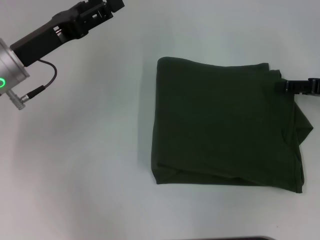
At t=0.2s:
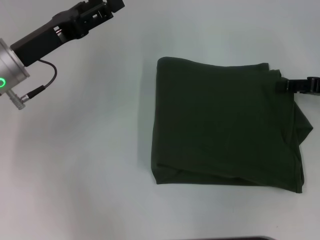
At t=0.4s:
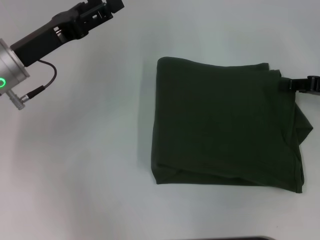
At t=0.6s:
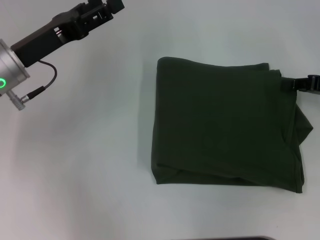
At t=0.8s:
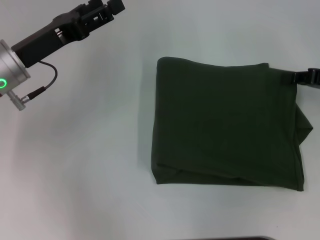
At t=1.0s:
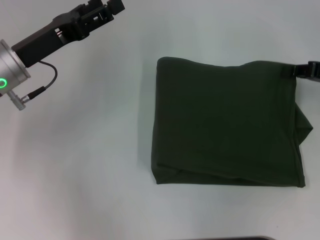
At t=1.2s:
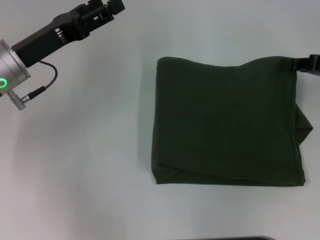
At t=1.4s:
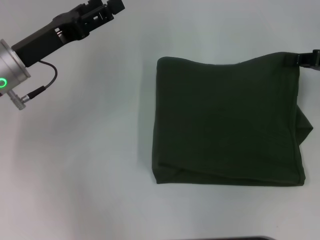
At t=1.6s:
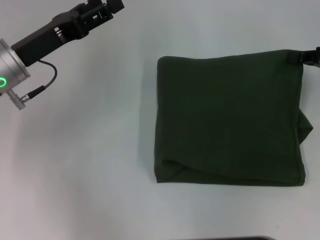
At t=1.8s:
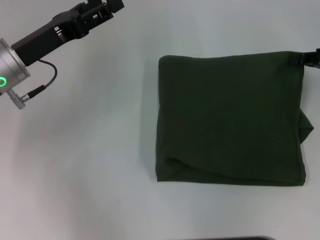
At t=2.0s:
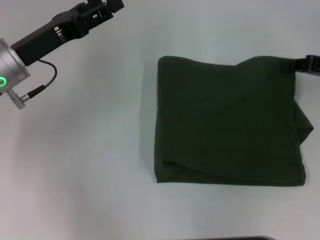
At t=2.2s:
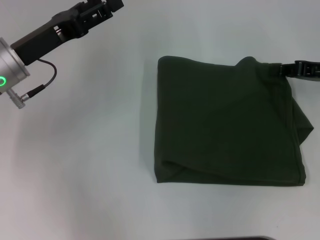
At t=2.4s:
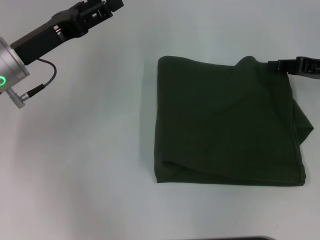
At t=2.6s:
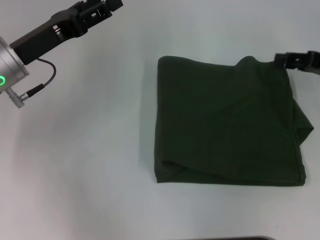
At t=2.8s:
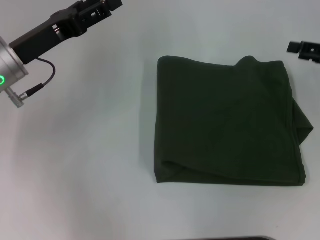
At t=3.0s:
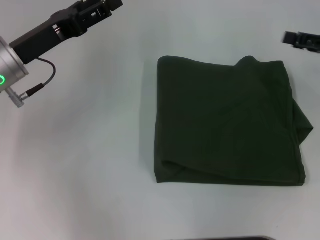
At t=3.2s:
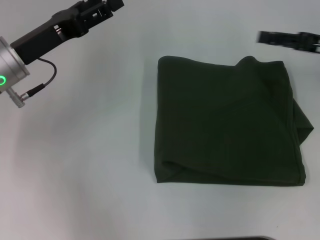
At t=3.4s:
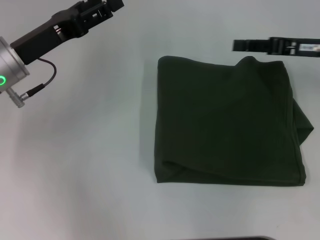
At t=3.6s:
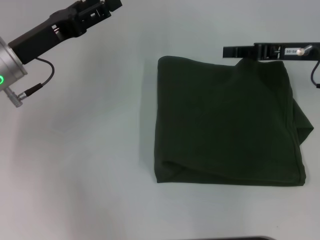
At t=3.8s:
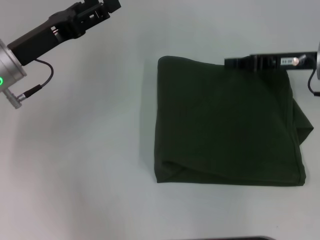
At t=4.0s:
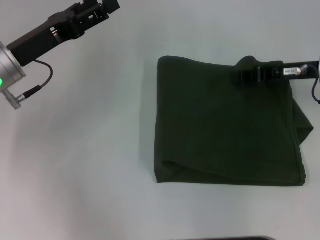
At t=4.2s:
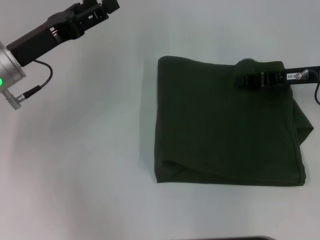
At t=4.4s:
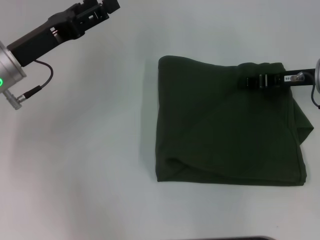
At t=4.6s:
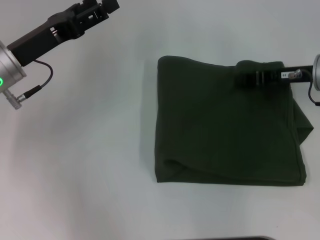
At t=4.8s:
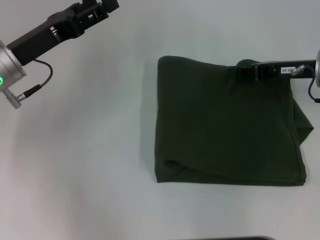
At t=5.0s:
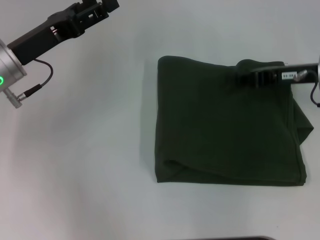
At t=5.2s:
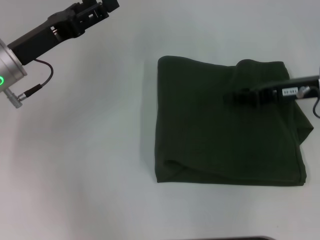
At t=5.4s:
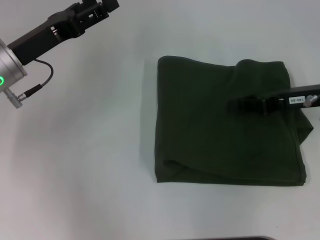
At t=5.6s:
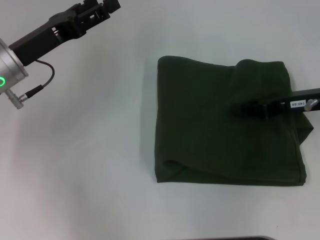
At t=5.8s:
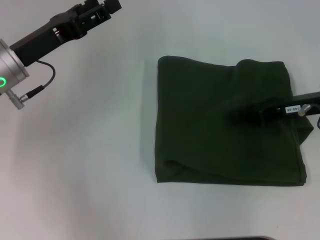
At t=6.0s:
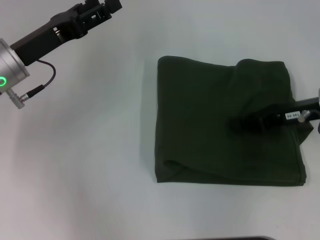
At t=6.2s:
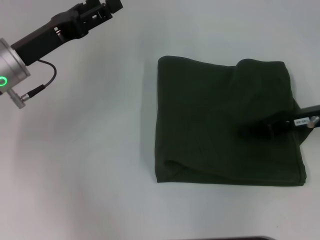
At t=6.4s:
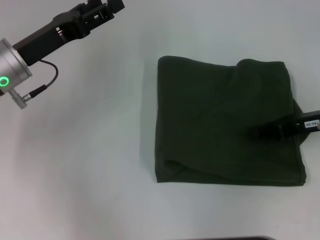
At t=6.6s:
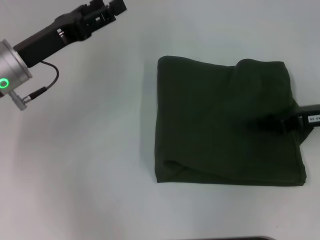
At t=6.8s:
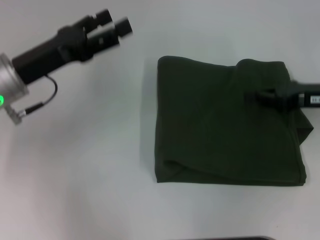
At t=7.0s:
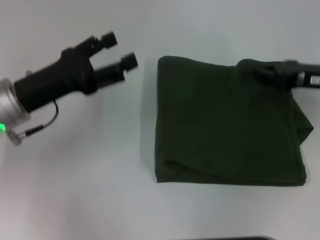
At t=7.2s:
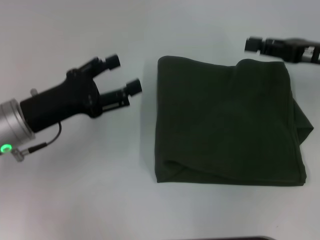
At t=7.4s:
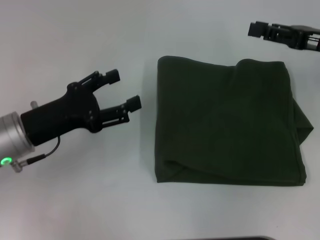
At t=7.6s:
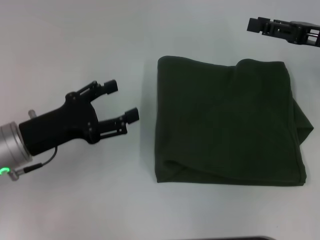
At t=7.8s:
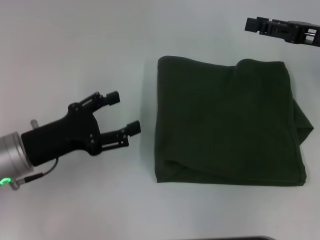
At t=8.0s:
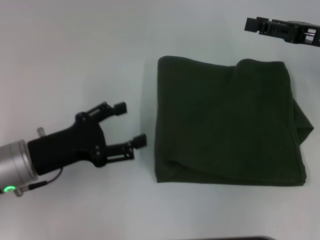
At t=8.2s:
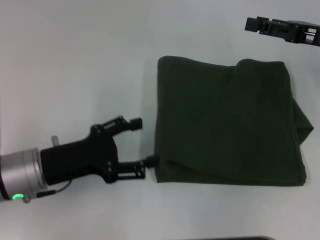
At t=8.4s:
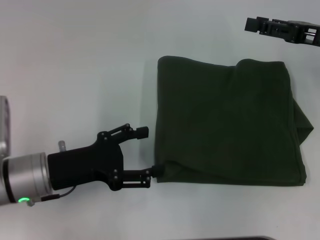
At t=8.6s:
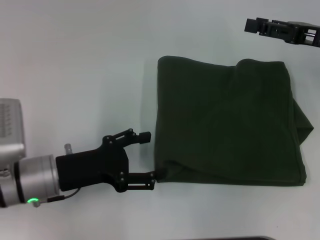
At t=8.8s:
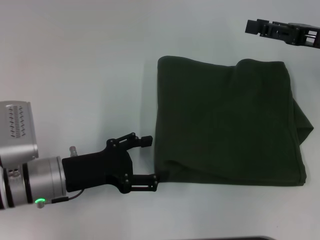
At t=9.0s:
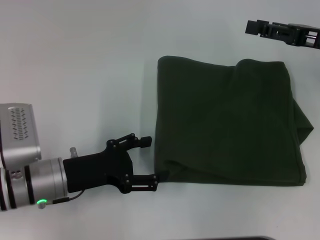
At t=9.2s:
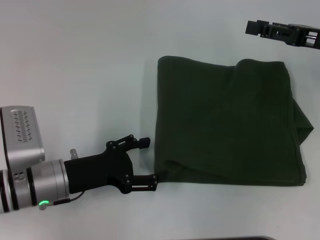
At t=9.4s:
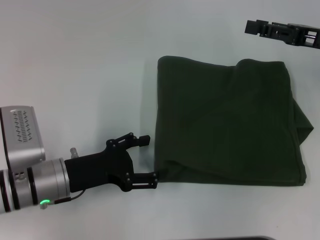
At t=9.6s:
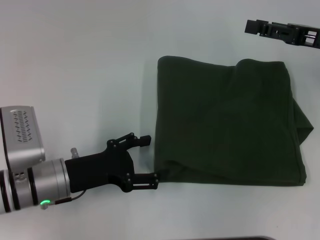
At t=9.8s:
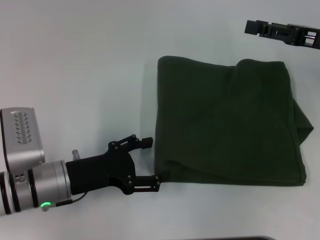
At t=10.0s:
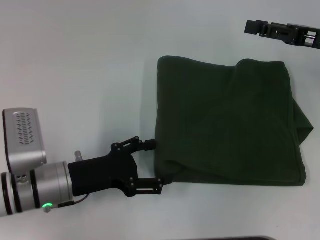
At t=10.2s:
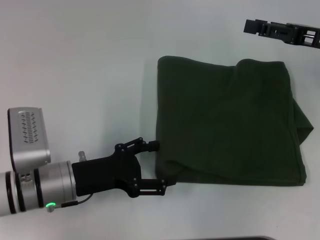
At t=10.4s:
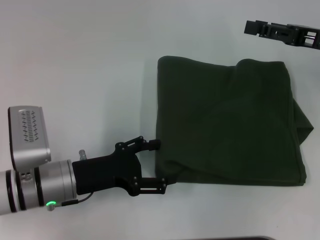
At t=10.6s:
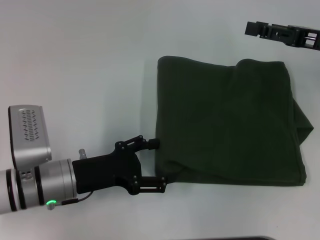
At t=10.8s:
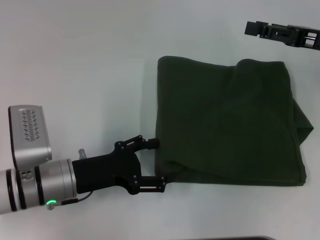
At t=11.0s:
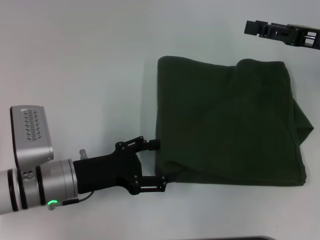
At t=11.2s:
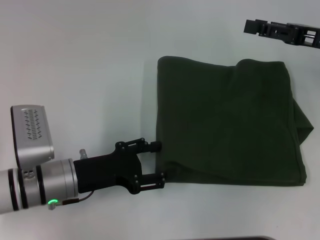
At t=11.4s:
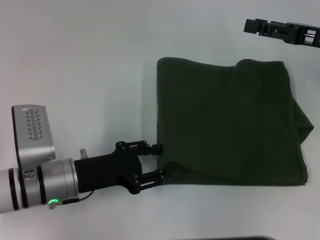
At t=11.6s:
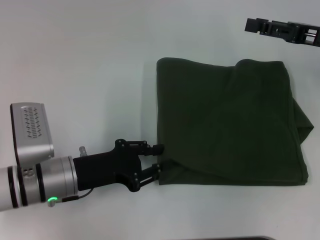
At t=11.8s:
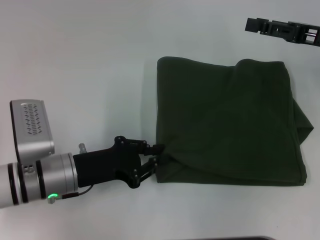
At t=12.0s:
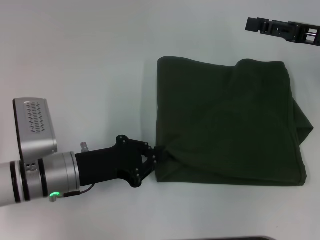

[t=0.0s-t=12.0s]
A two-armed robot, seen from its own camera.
t=0.0s to t=1.6s: The right gripper closes its fingers.
t=1.6s to t=3.0s: The right gripper opens its fingers.
t=3.0s to t=4.4s: The right gripper travels to the left by some 5 cm, and closes up.
t=4.4s to t=6.0s: The grippers stay close to where they were, moving slightly.
t=6.0s to t=7.6s: The left gripper goes about 10 cm backward; the right gripper moves upward, roughly 5 cm, and opens.
t=7.6s to t=9.0s: The left gripper changes place by approximately 5 cm.
t=9.0s to t=10.4s: Neither gripper changes place.
t=10.4s to t=12.0s: The left gripper closes.

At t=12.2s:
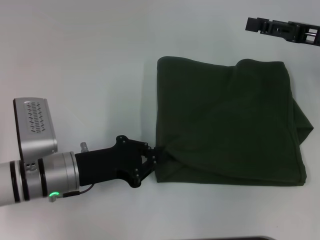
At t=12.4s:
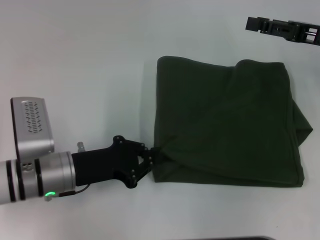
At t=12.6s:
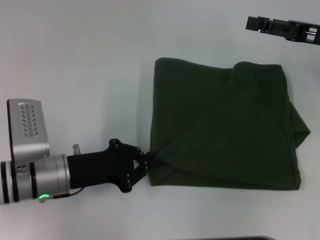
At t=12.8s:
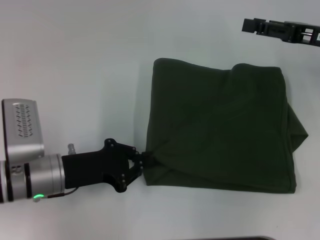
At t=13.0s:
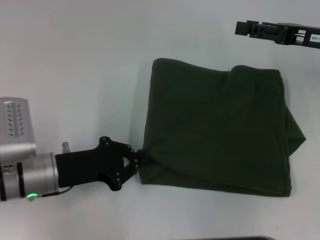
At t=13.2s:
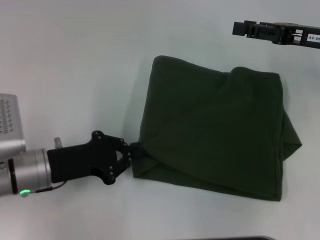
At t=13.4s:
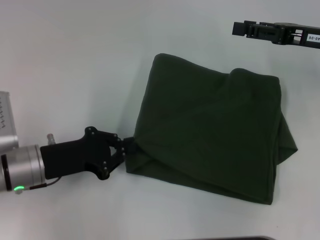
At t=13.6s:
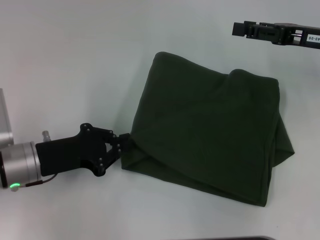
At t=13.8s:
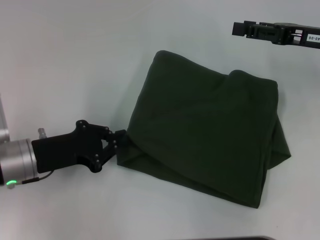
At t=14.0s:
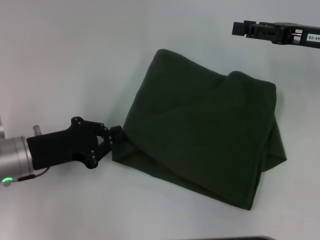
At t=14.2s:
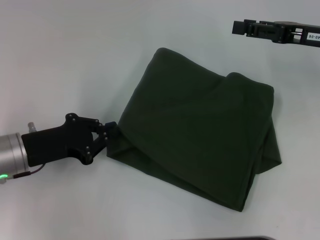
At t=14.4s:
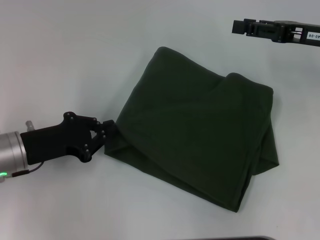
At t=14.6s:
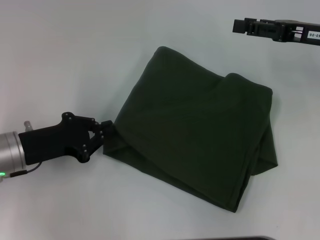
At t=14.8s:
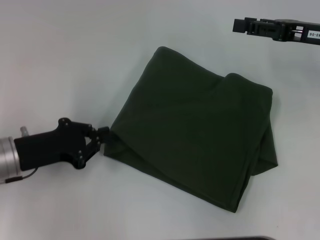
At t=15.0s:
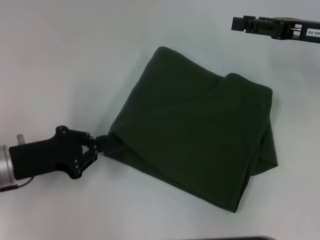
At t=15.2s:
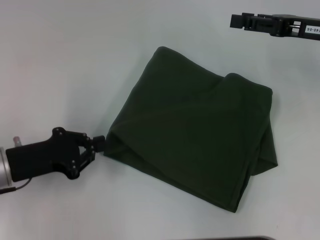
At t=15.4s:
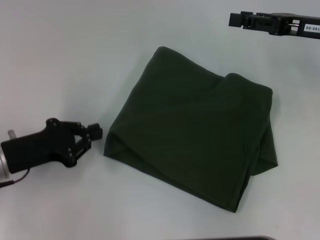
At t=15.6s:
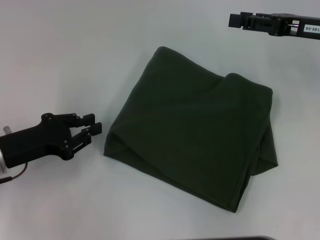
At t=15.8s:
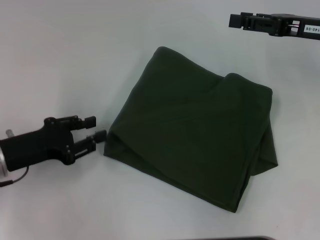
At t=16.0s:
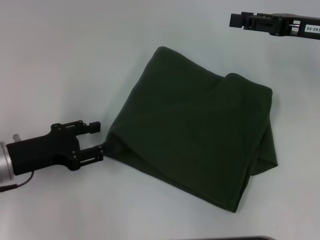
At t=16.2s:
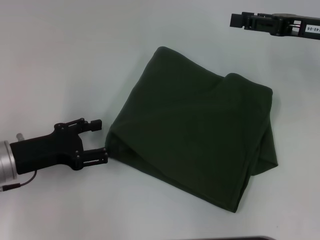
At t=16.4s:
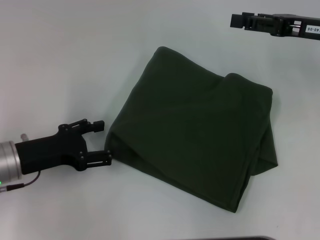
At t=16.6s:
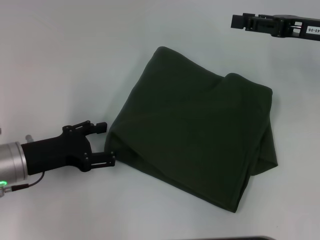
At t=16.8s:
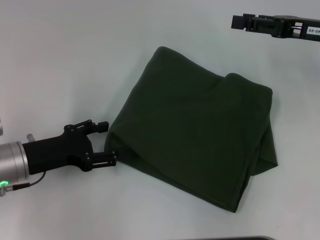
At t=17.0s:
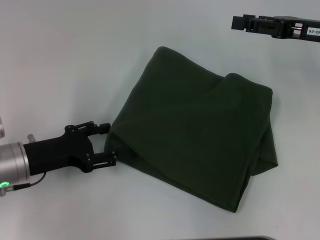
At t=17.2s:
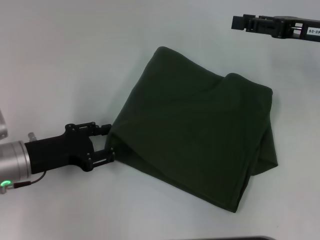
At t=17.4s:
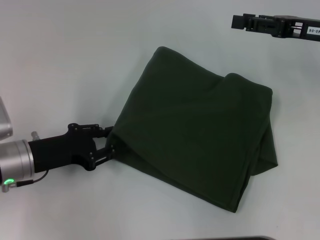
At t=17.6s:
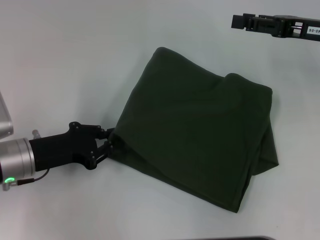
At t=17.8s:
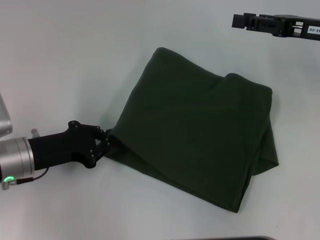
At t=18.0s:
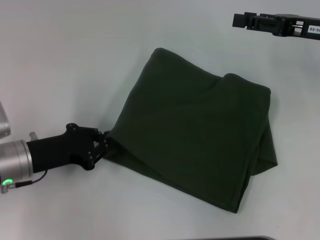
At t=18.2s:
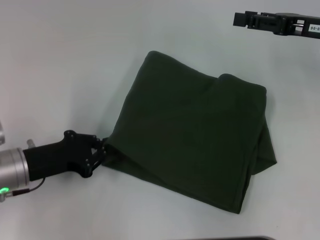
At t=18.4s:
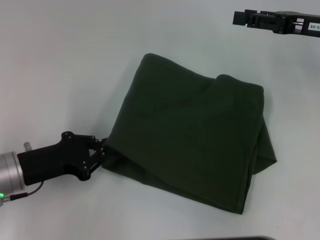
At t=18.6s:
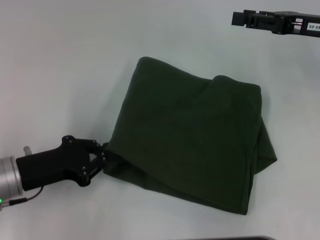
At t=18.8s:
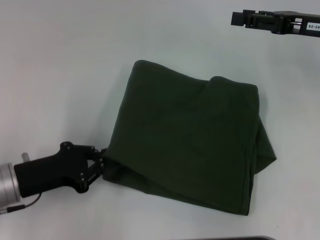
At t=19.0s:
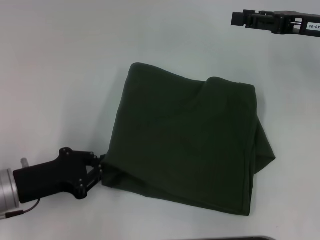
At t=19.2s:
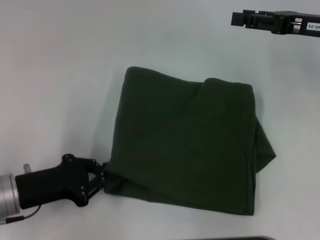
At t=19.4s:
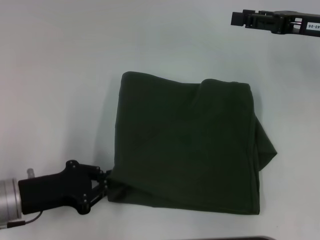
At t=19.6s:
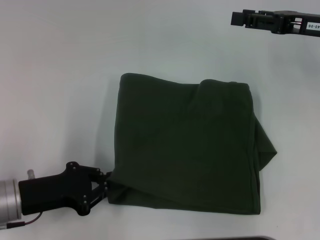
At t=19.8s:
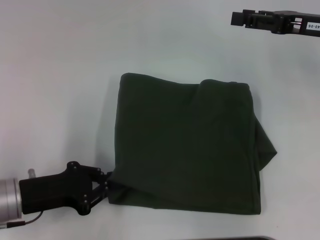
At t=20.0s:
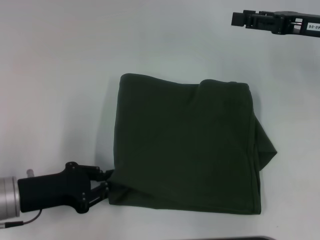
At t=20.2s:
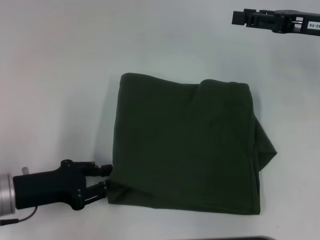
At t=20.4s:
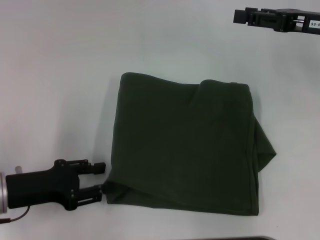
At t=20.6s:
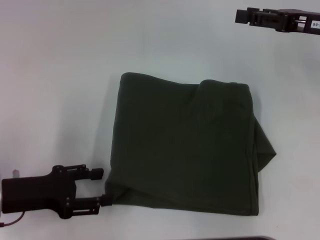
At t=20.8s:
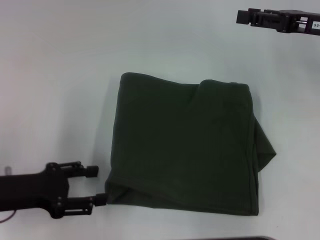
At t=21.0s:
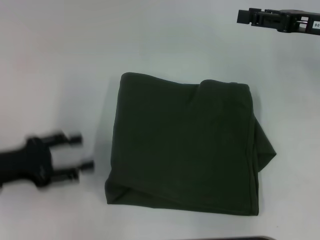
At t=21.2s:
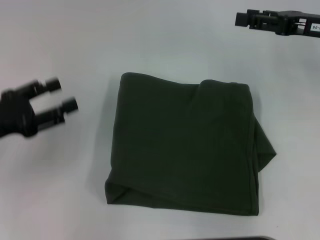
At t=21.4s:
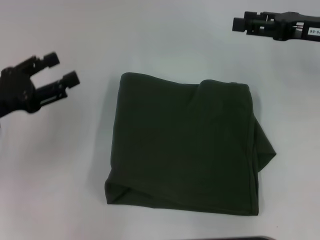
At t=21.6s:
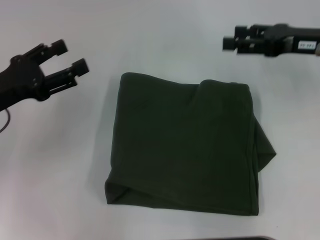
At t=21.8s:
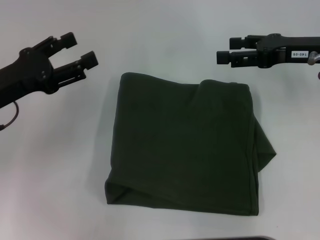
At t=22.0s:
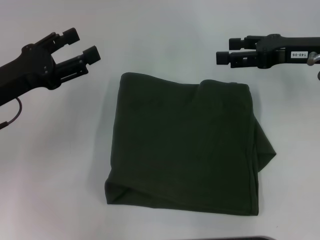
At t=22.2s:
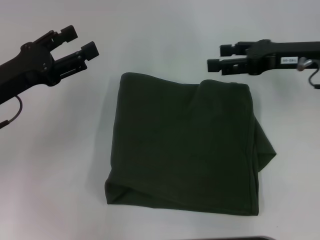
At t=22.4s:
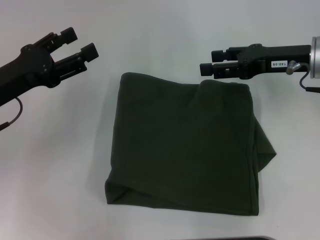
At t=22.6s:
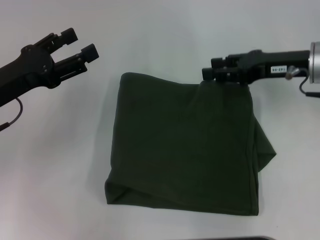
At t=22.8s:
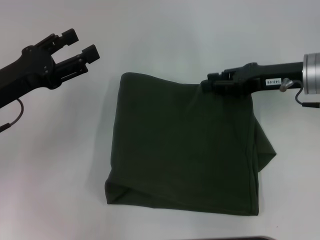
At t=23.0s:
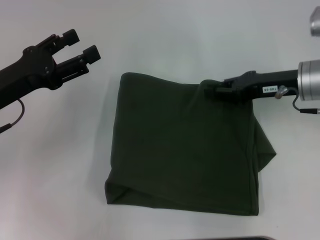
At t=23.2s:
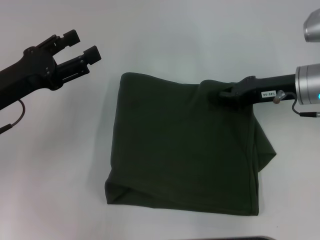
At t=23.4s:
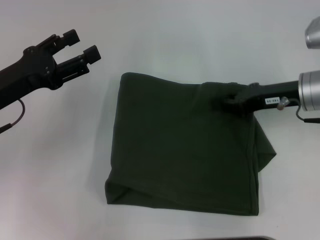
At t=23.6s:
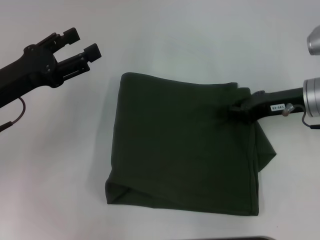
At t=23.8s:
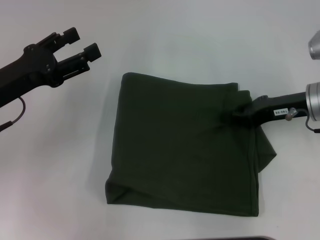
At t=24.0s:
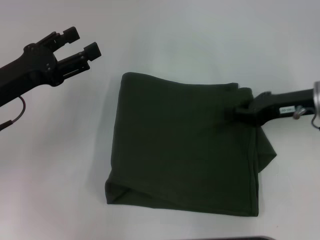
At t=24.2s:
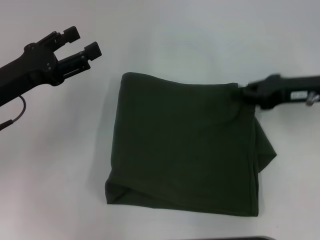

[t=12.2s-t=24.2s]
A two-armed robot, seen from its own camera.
t=12.2s to t=13.8s: The left gripper heads to the left, covering approximately 5 cm.
t=13.8s to t=15.2s: There are only small adjustments of the grippers.
t=15.2s to t=16.6s: The left gripper opens.
t=16.6s to t=18.2s: The left gripper closes its fingers.
t=19.8s to t=21.2s: The left gripper moves upward and to the left, about 10 cm, and opens up.
t=21.2s to t=22.6s: The left gripper ends up approximately 5 cm from where it was. Meanwhile the right gripper changes place by some 5 cm.
t=22.6s to t=24.2s: The right gripper closes its fingers.
